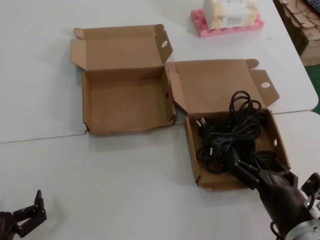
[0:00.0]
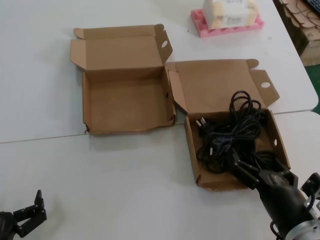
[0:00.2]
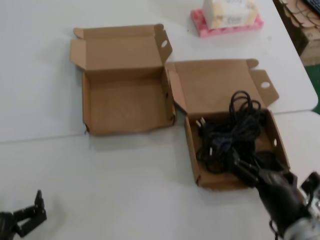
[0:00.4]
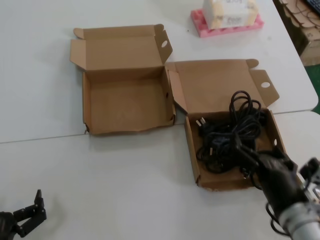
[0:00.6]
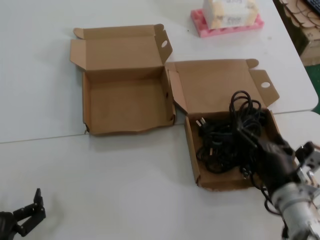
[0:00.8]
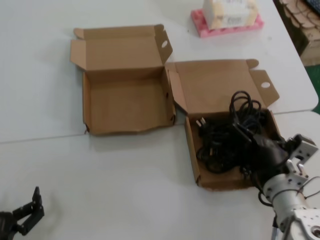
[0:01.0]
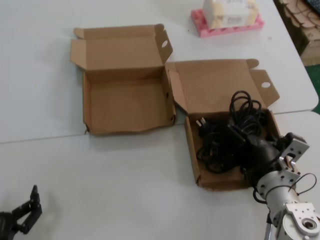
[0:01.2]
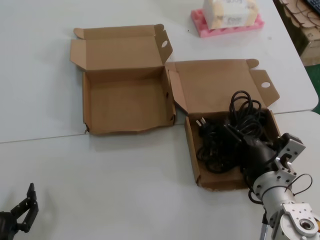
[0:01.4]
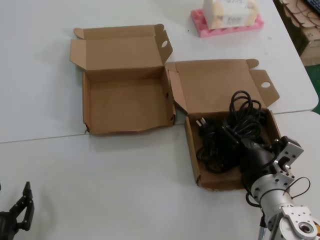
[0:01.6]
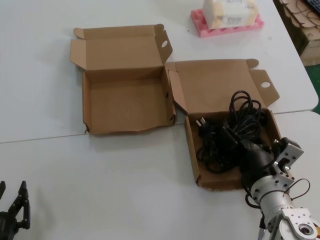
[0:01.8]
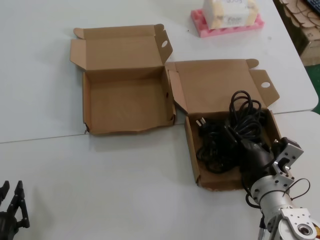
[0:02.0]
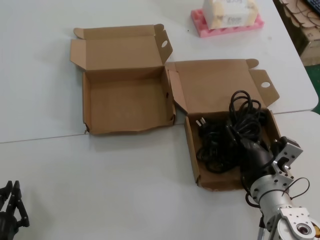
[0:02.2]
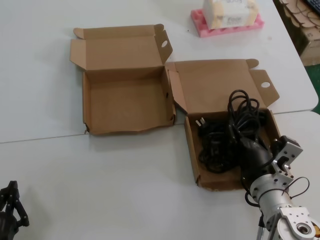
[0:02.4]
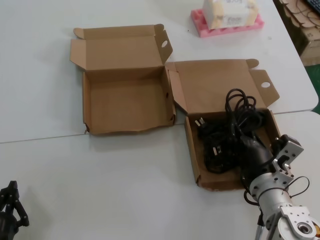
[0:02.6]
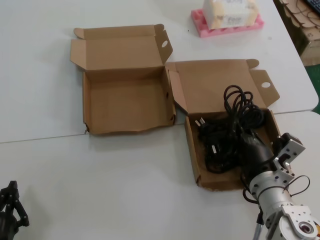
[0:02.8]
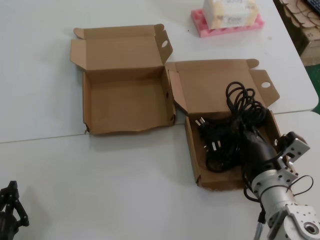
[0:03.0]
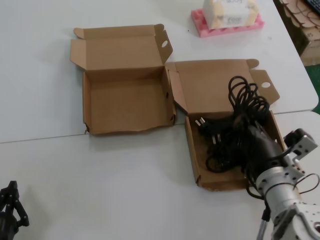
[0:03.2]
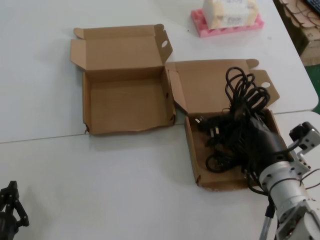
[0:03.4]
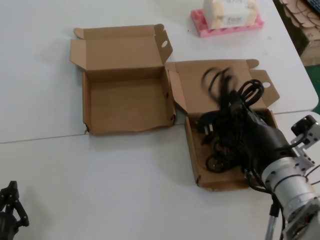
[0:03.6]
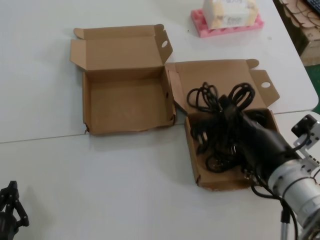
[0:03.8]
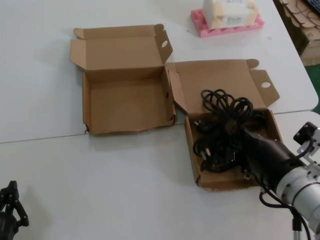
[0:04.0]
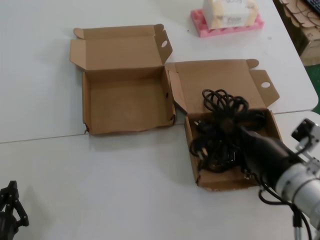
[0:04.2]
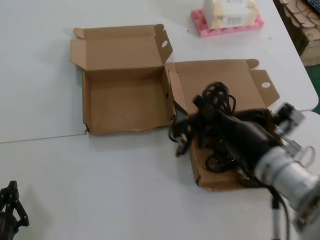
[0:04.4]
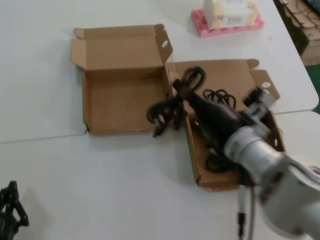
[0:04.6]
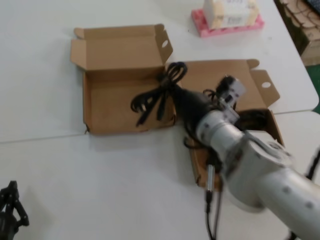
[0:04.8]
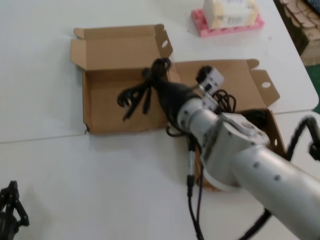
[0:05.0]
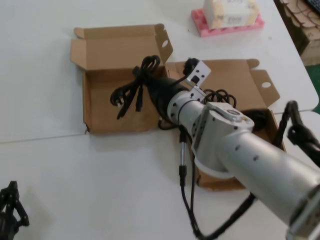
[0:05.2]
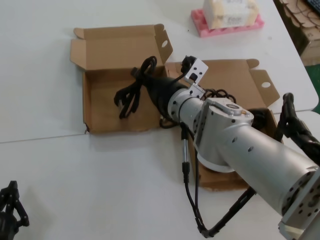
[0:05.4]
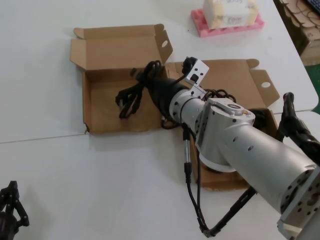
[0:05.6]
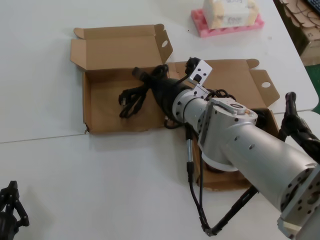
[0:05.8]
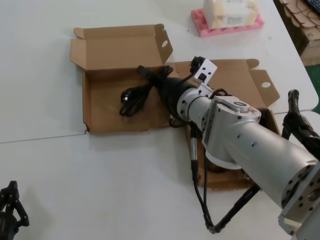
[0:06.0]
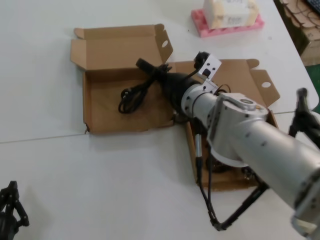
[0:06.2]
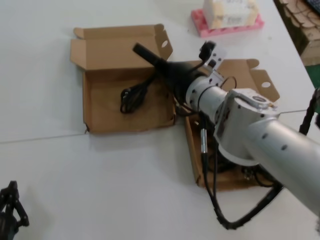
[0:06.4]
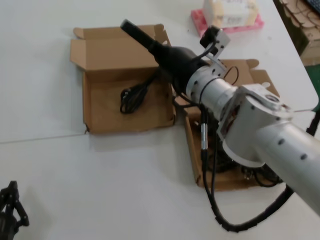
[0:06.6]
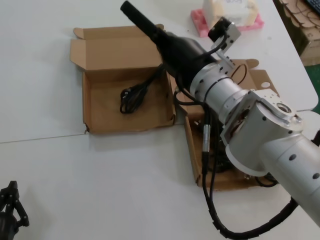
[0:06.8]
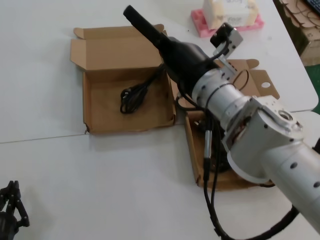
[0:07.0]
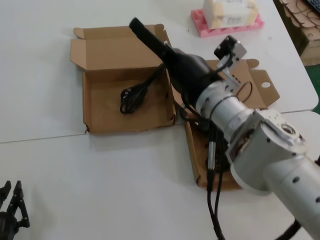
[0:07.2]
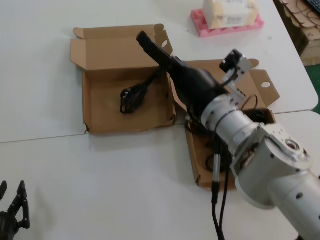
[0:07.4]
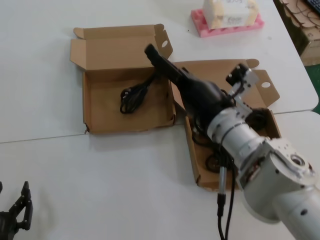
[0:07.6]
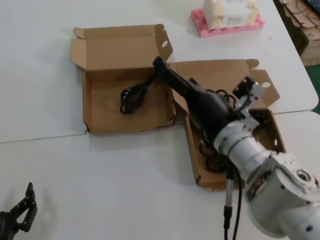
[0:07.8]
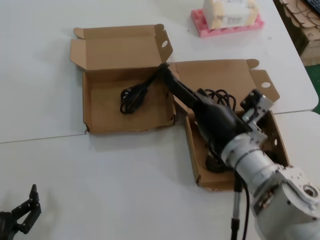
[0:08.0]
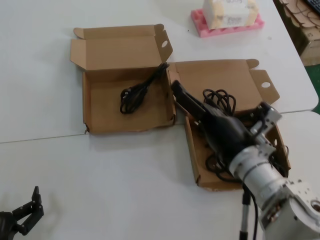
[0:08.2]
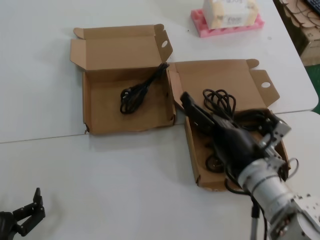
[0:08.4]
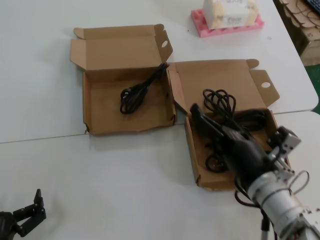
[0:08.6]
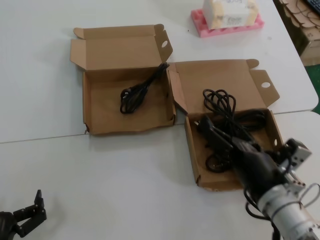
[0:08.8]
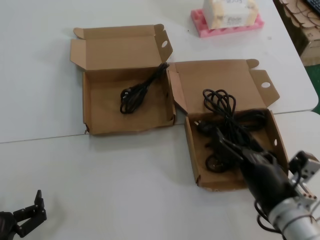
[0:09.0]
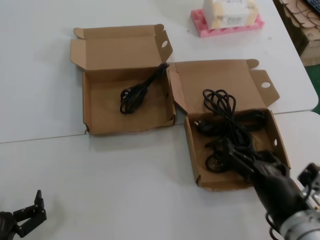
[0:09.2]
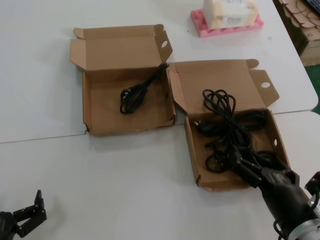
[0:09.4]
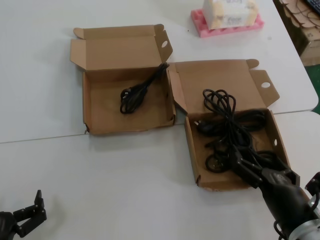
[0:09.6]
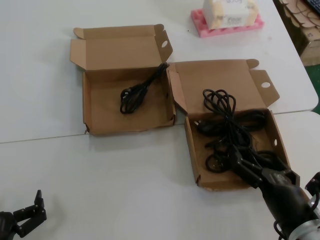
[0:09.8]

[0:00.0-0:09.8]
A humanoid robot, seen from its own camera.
Task of the whole recording: Pick up the power cord from the box containing it and place it in another box.
Step, 0:00.0 to 0:02.8: Grasp the data cable.
Step, 0:03.0 to 0:06.4: Place the data cable in the another box.
0:00.0 to 0:01.4: The right hand is displaced forward by some 10 cm.
0:01.4 to 0:02.8: The two hands keep their place.
0:02.8 to 0:04.2: The right hand moves upward and backward, about 10 cm.
0:04.2 to 0:05.6: The right hand goes roughly 25 cm forward and to the left.
0:05.6 to 0:07.0: The right hand goes some 10 cm backward and upward.
0:07.0 to 0:08.4: The right hand is displaced downward, backward and to the right by some 15 cm.
0:08.4 to 0:09.8: The right hand is displaced backward, downward and to the right by roughly 15 cm.
